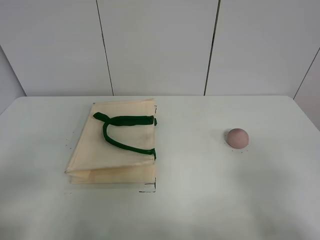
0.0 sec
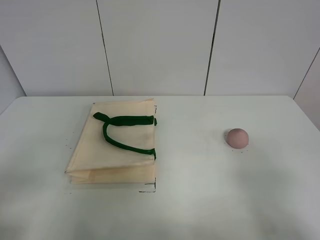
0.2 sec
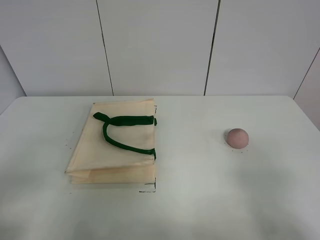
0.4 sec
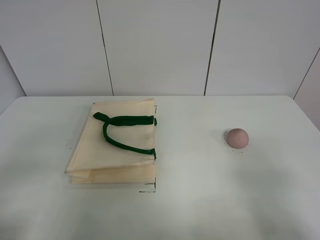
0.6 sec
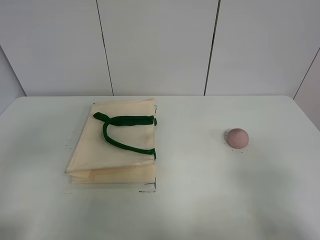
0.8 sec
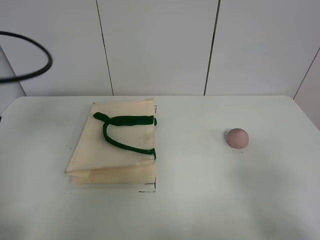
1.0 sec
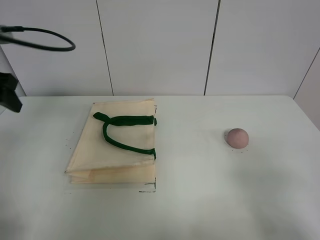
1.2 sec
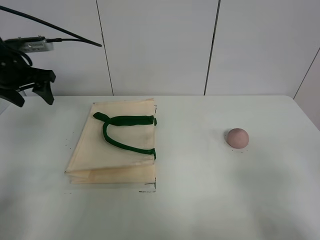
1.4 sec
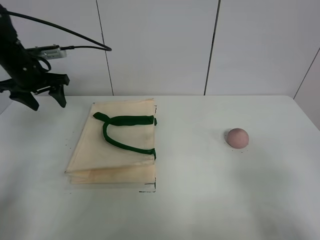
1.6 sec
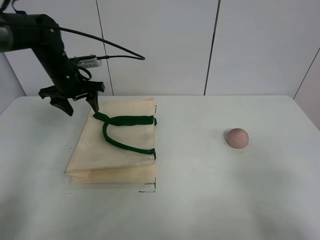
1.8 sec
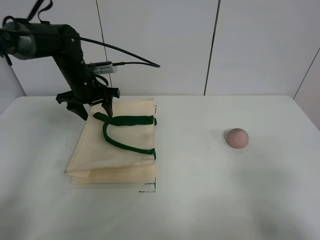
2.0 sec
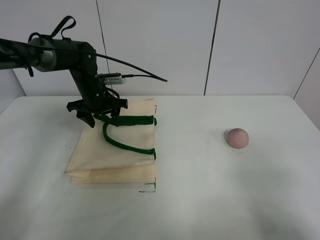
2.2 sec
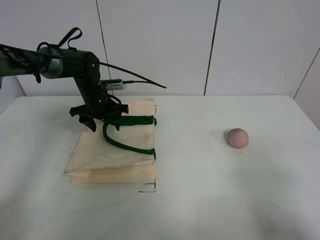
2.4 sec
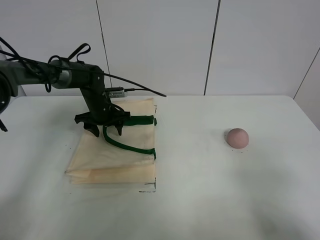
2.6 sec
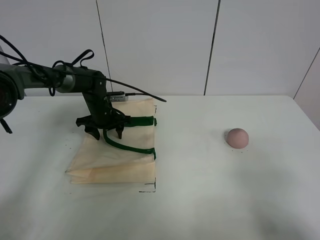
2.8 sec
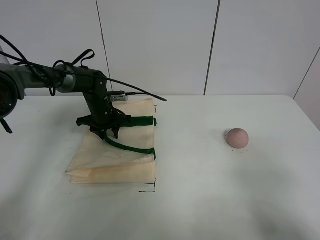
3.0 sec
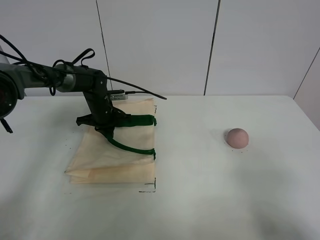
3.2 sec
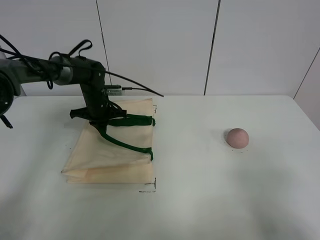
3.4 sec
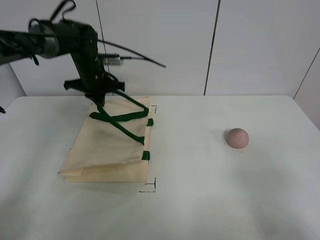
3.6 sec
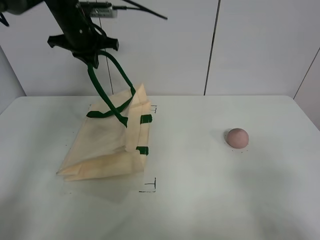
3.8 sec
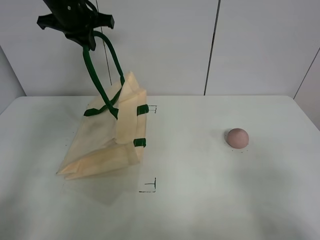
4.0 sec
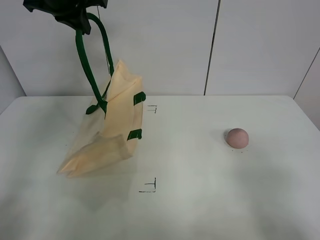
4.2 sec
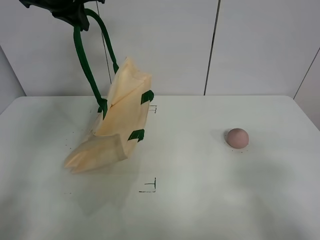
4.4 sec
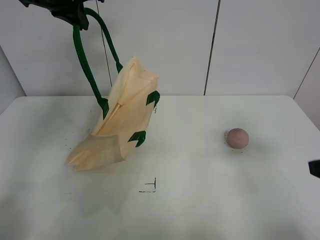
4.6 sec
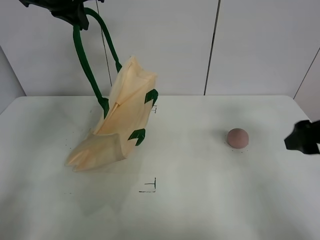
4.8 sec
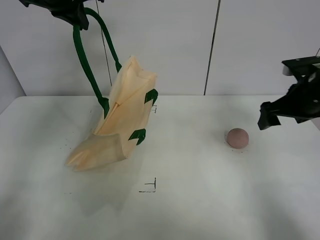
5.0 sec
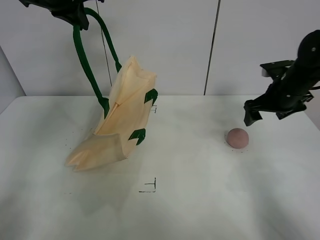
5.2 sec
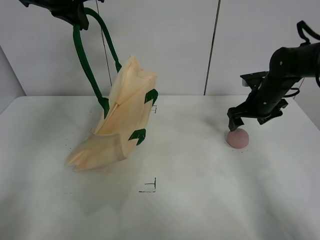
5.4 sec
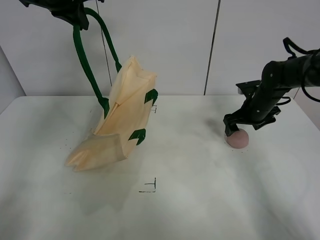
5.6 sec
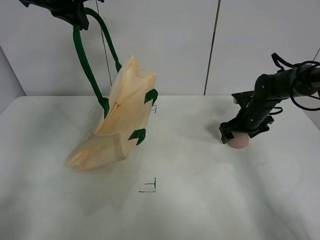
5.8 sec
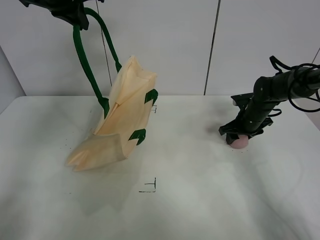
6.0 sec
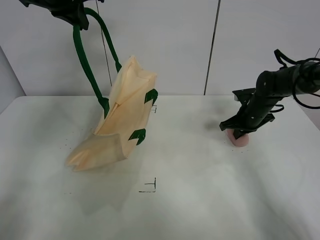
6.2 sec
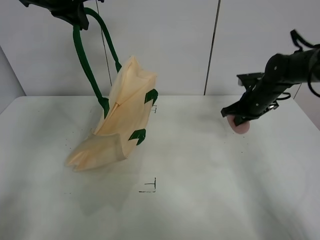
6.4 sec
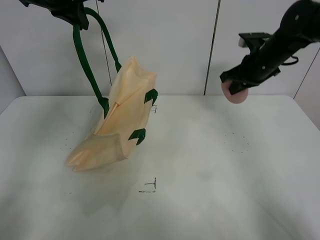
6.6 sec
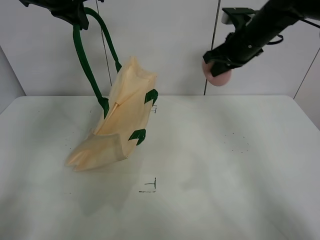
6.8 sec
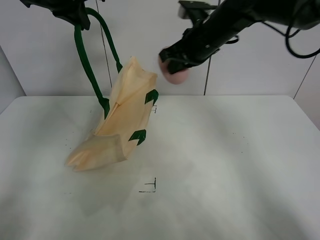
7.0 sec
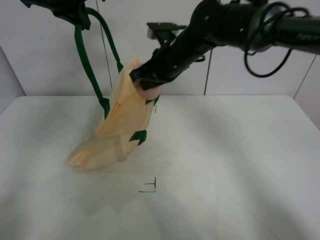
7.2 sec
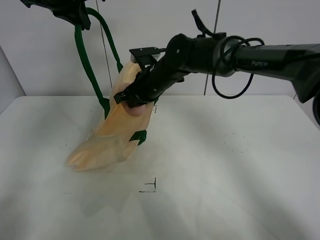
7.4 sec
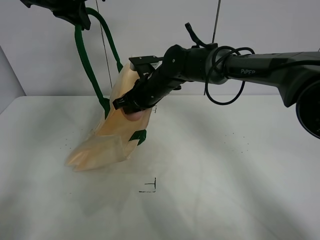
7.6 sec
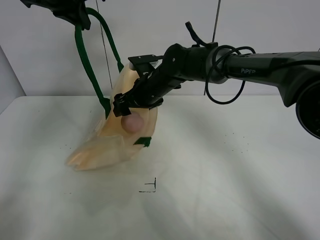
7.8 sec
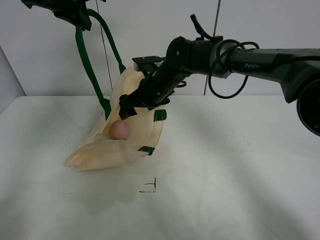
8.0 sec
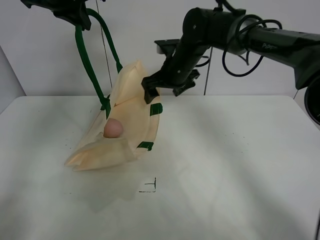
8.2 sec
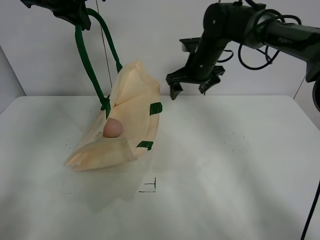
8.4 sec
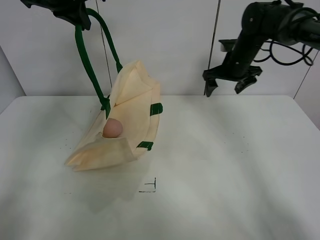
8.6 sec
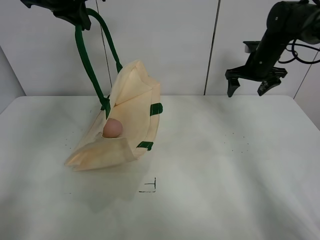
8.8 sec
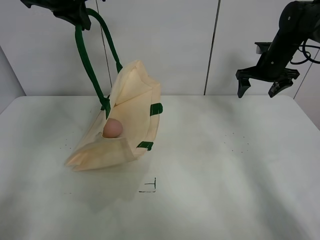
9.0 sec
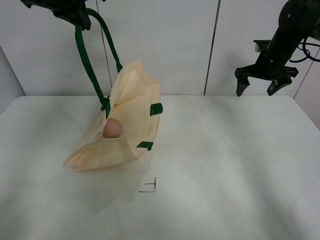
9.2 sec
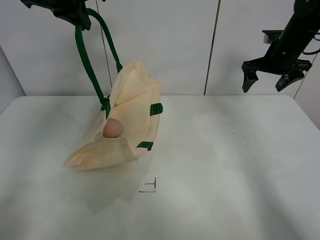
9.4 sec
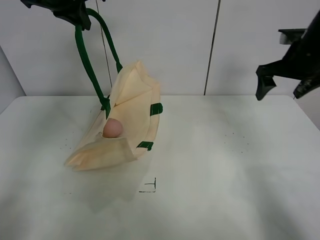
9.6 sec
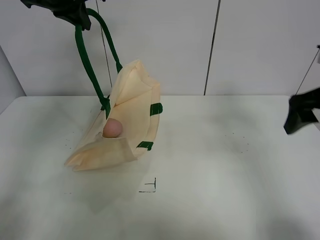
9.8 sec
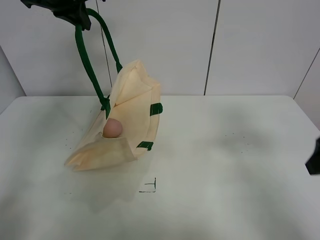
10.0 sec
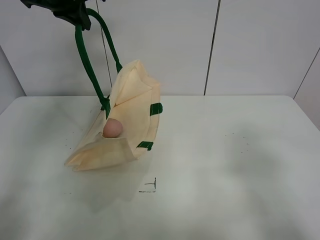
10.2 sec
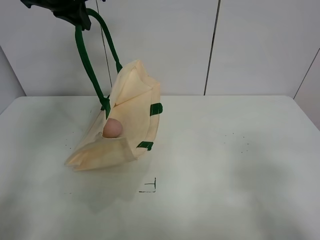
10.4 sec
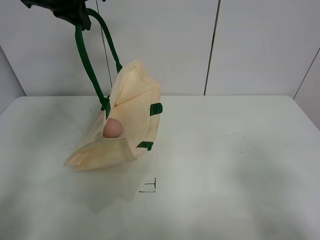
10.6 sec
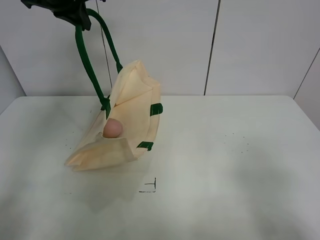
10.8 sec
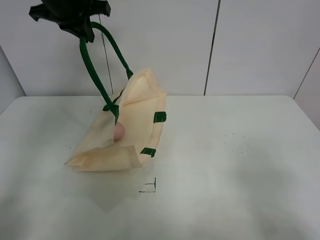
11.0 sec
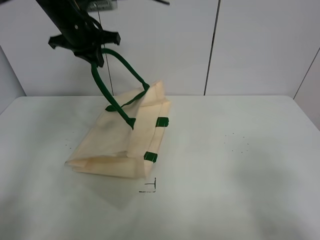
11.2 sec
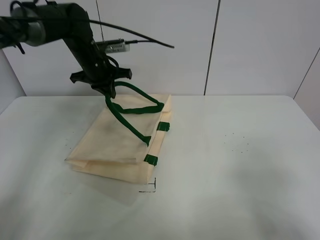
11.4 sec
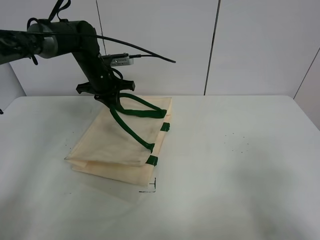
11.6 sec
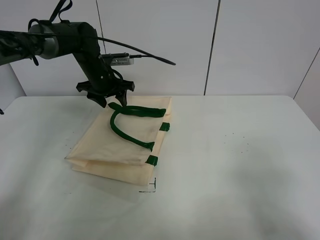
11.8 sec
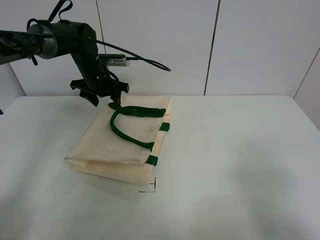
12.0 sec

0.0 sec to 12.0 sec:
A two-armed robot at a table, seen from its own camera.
Task of the whole recording: open the white linen bag and put the peach in the bag.
Step, 0.0 sec to 4.4 sec: Lift the handbag with left gripper.
Step, 4.6 sec to 6.0 sec: Grasp the peach with right gripper.
Step, 6.2 sec to 8.4 sec: Place the peach in the handbag with right gripper.
0.0 sec to 1.6 sec: The left gripper shifts about 40 cm forward.
1.6 sec to 3.0 sec: The left gripper travels downward and to the right by about 20 cm, and closes its fingers.
3.0 sec to 4.4 sec: The left gripper is displaced upward by approximately 30 cm, and closes.
4.4 sec to 6.0 sec: The right gripper heads forward and downward, covering some 40 cm, and closes up.
6.0 sec to 7.6 sec: The right gripper moves to the left, approximately 25 cm, and closes, then opens again.
7.6 sec to 9.0 sec: The right gripper is displaced to the right by some 30 cm, and opens up.
9.0 sec to 10.4 sec: The right gripper is displaced backward by about 50 cm.
10.4 sec to 12.0 sec: The left gripper goes approximately 20 cm downward, and opens its fingers.

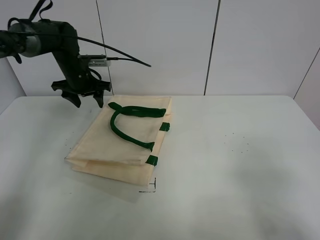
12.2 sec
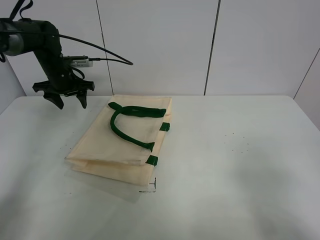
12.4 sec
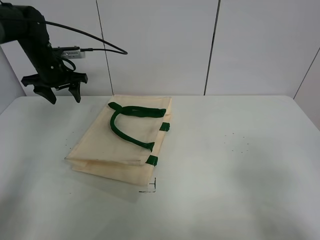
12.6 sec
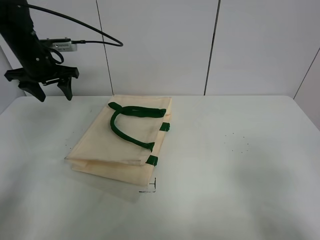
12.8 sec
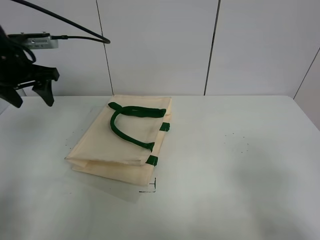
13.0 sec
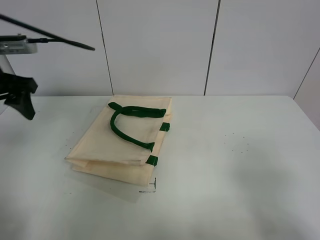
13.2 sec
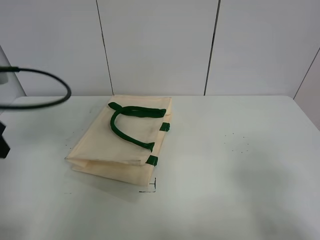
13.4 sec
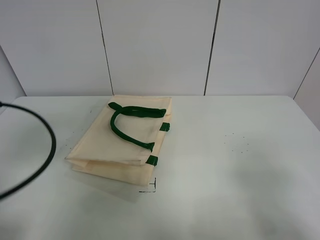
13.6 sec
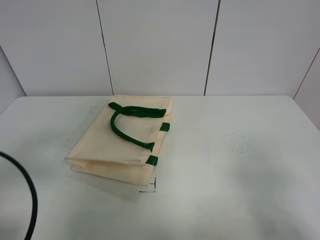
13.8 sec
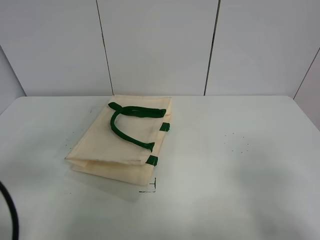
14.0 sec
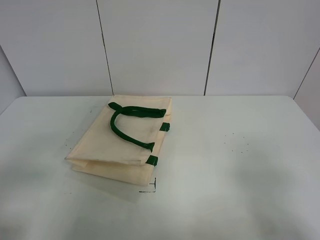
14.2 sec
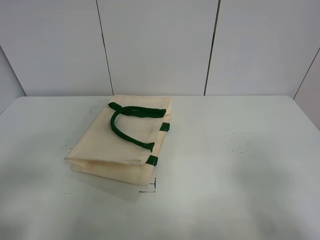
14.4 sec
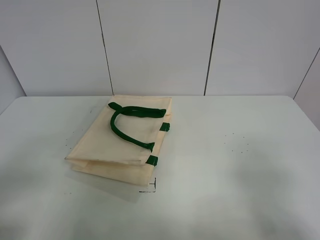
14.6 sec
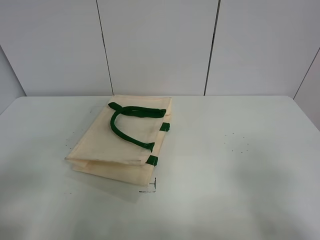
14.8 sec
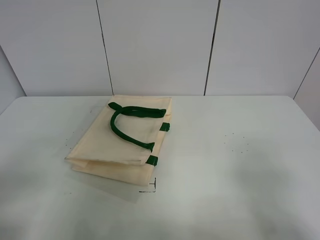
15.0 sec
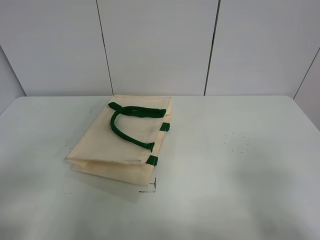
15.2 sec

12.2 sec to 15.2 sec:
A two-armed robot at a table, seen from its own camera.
Task of the whole recording: open the white linen bag and put the peach in the bag.
12.2 sec to 13.8 sec: The left gripper heads backward, covering roughly 40 cm.
13.8 sec to 15.2 sec: The left gripper shifts roughly 5 cm backward.
